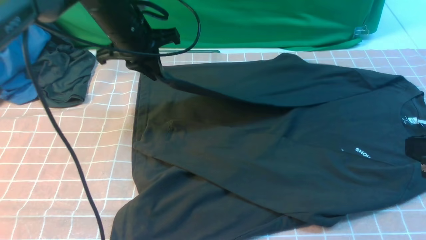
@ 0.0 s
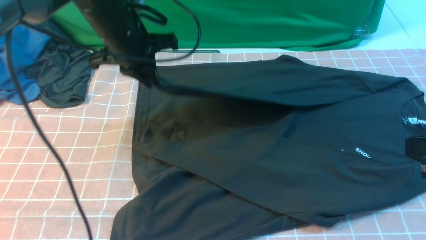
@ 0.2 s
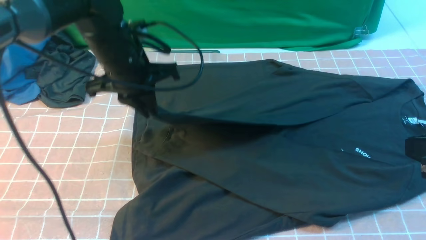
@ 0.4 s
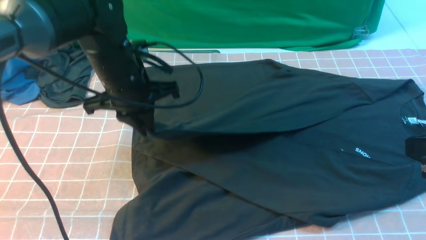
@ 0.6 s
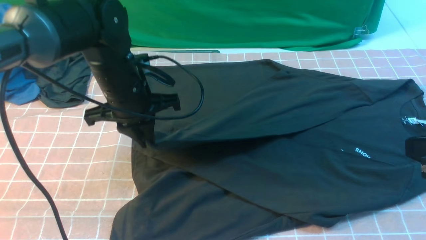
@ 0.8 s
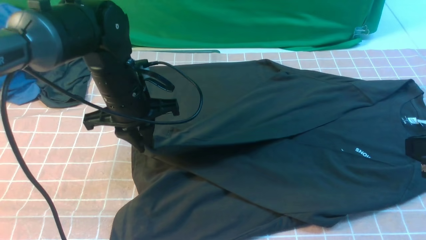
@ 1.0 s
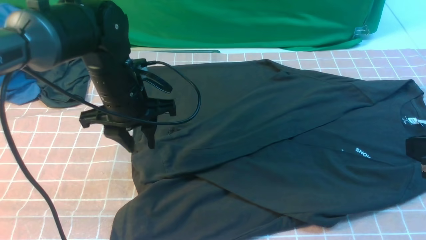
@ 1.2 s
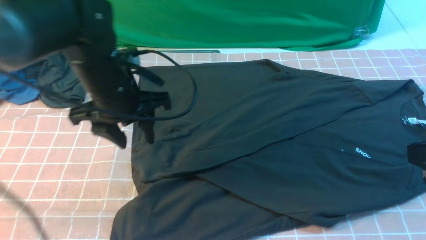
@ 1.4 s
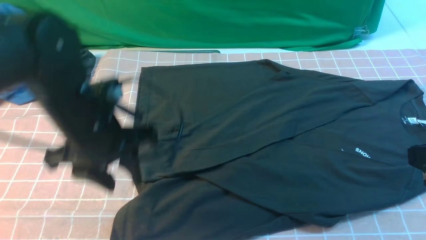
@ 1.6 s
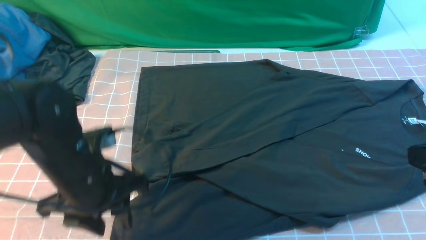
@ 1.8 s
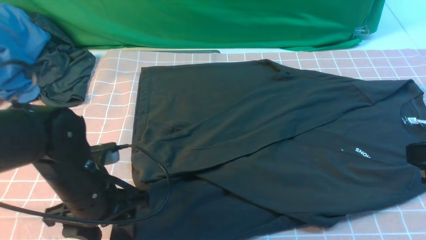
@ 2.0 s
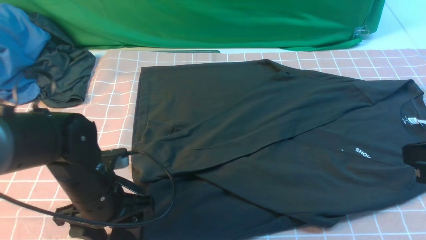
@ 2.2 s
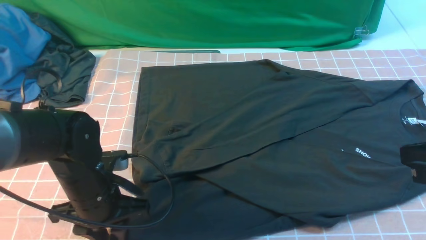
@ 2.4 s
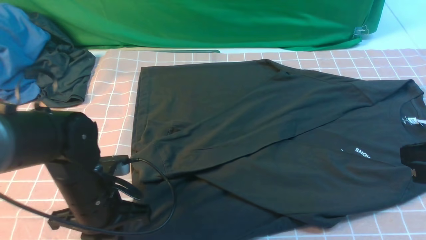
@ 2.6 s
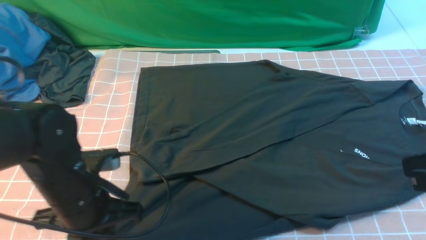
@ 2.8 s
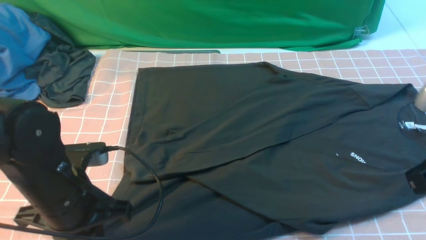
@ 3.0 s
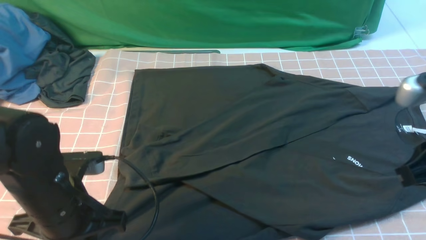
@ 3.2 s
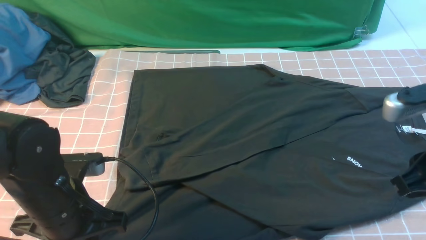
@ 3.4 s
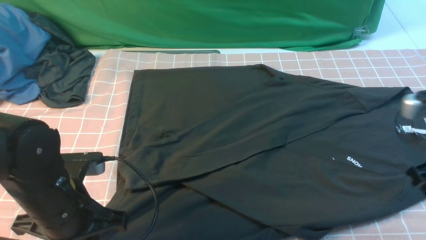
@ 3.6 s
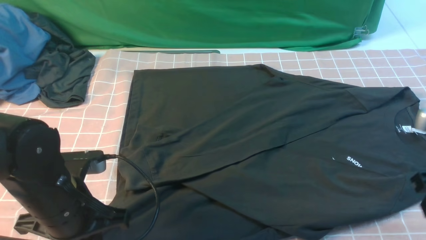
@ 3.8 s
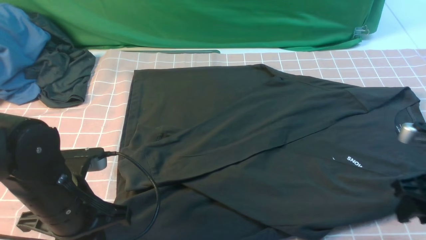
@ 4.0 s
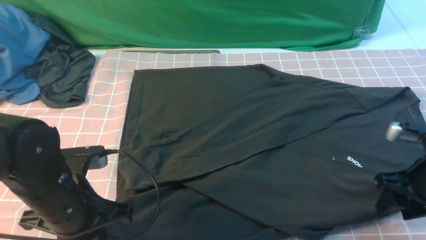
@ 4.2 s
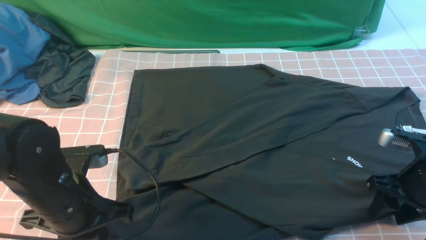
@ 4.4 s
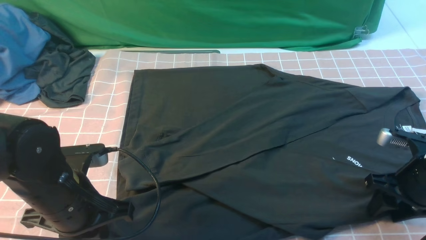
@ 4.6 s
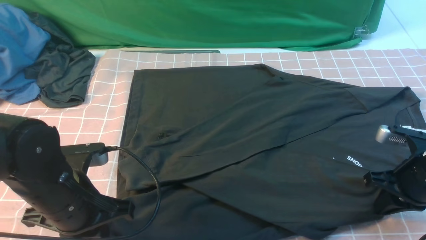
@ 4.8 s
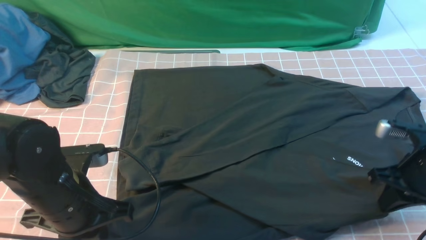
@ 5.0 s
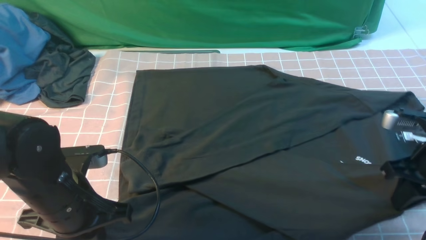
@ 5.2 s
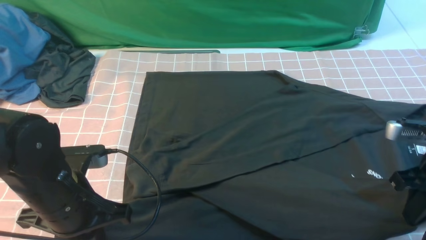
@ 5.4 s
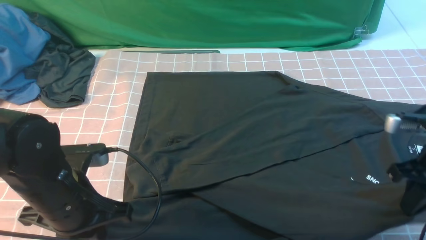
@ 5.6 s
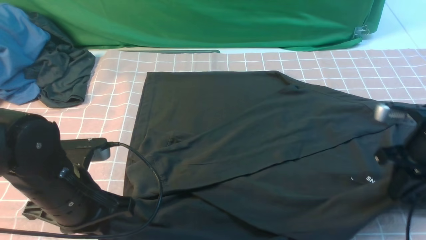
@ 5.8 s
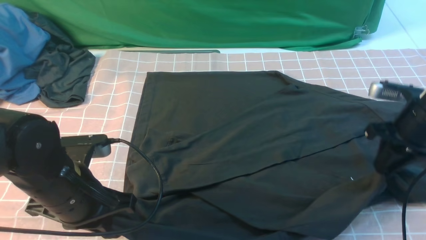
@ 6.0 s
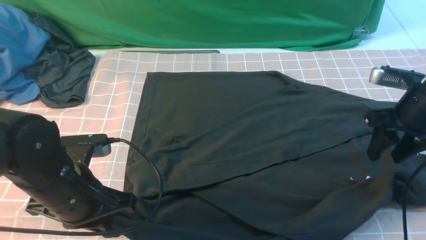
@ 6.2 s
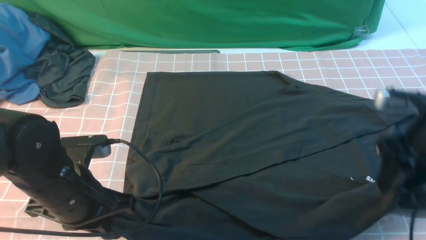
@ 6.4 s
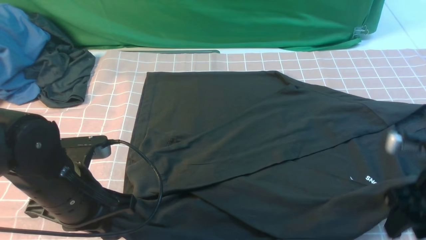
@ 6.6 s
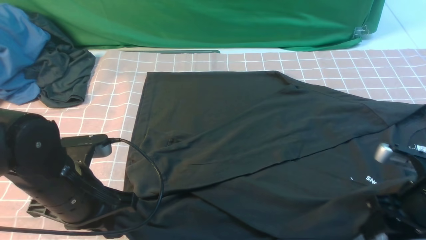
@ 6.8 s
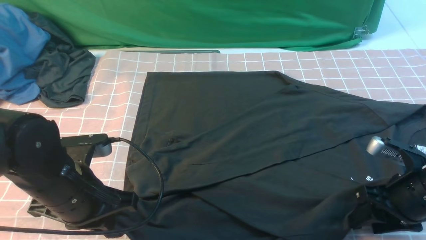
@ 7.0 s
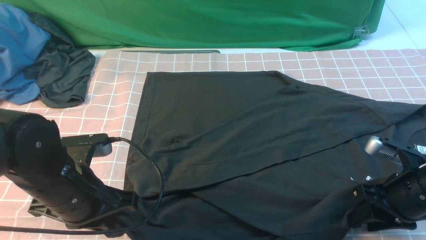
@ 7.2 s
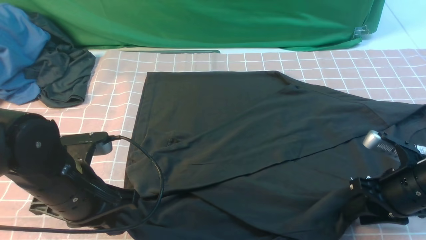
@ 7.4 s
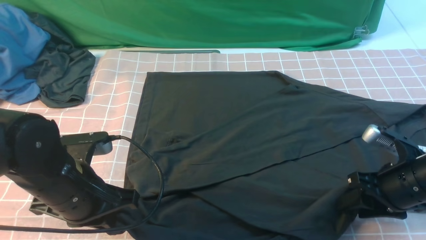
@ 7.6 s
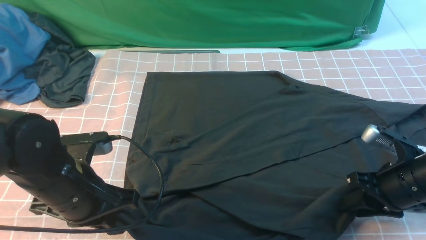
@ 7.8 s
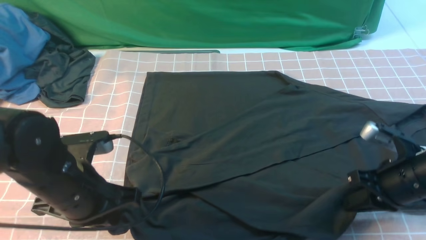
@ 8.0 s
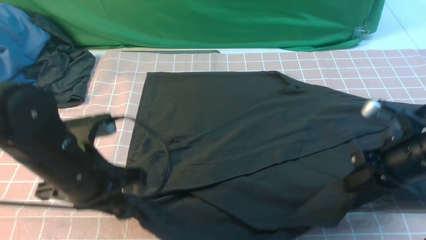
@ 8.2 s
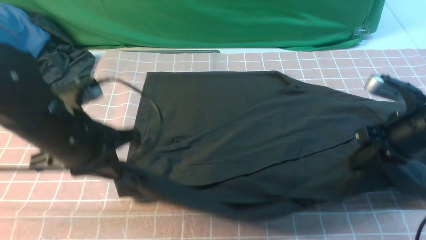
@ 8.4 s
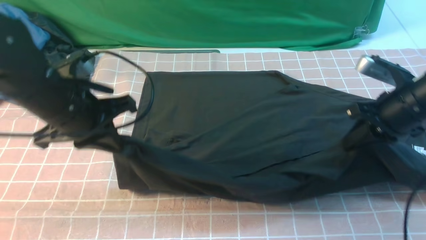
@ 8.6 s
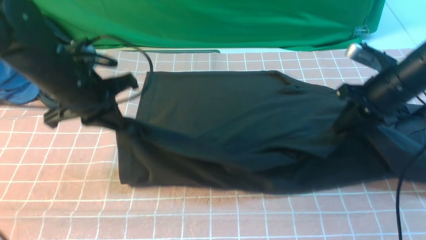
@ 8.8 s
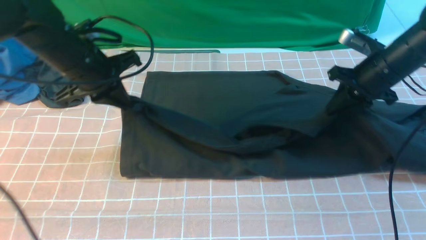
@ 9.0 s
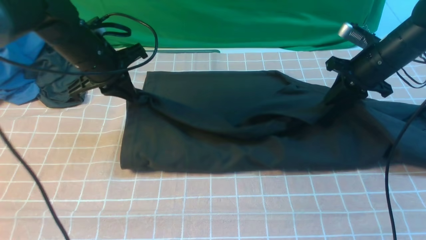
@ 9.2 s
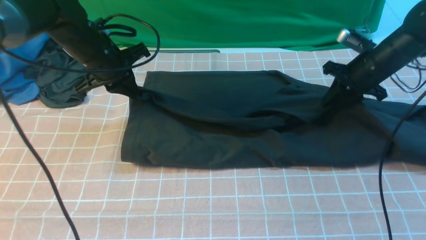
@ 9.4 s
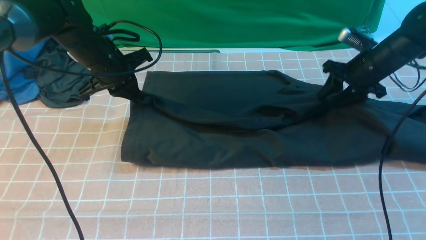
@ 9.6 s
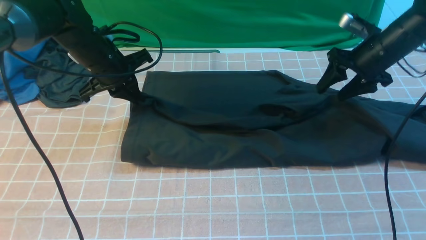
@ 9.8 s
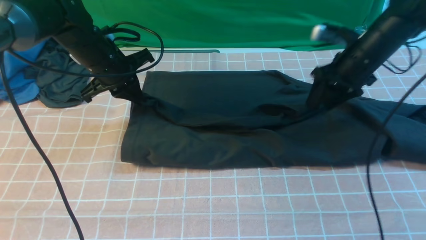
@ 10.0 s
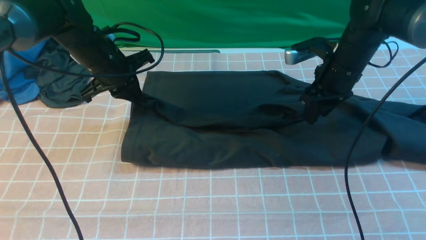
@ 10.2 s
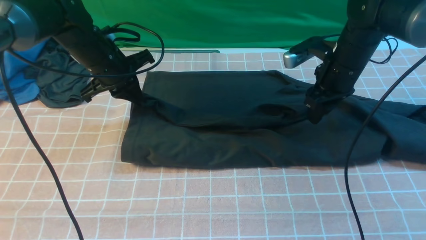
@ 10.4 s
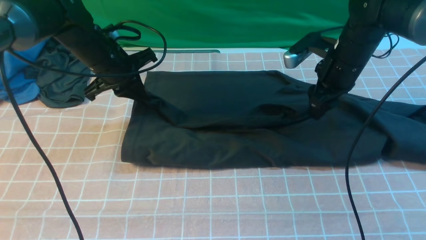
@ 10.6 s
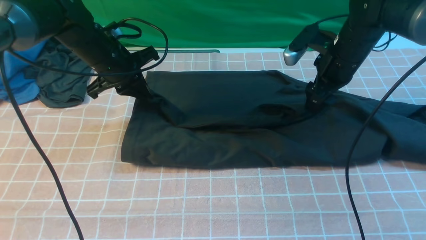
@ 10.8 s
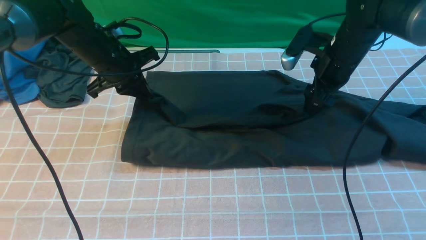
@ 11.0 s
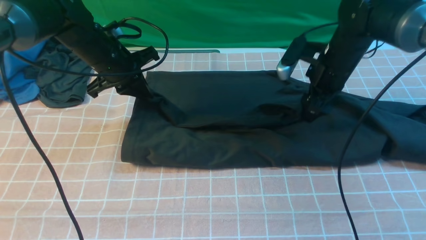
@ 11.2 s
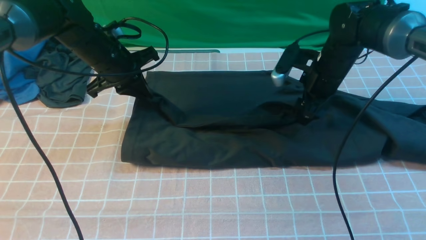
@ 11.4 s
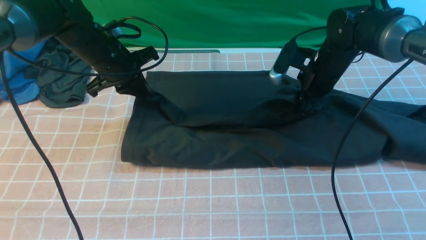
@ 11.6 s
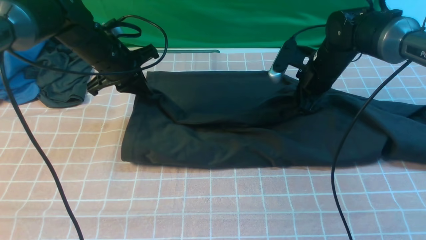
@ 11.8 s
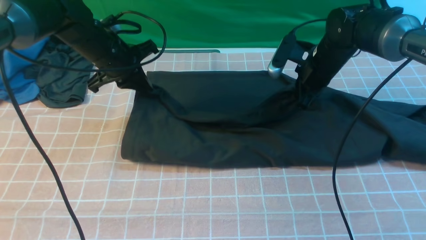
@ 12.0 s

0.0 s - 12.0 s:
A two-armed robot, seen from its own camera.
Step, 0.0 s - 1.2 s: use the left arm to drag and drop the cuff onto the cuff closest to the left arm.
Step, 1.4 s - 8.2 s: use both arms simultaneously to clamp the lower edge of the clothing fabric.
0.0 s - 1.6 s: The left gripper goes roughly 15 cm backward, and opens.
1.6 s - 3.0 s: The left gripper heads backward, covering about 5 cm, and closes its fingers.
3.0 s - 4.4 s: The right gripper travels downward and forward by about 15 cm, and opens its fingers.
4.4 s - 6.0 s: The right gripper heads forward and upward, covering approximately 10 cm, and closes, then opens again.
6.0 s - 7.6 s: The right gripper shifts some 10 cm backward and downward.
7.6 s - 9.0 s: Both grippers travel together forward, some 15 cm. The right gripper closes up.
9.0 s - 10.4 s: The right gripper shifts roughly 5 cm to the left, and opens up; the left gripper heads forward, covering about 5 cm.
10.4 s - 12.0 s: The right gripper shifts by about 5 cm, and closes up.

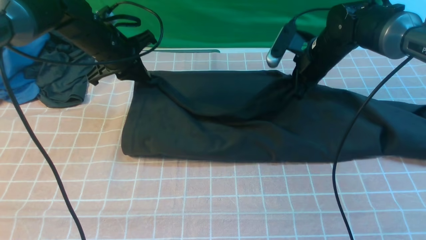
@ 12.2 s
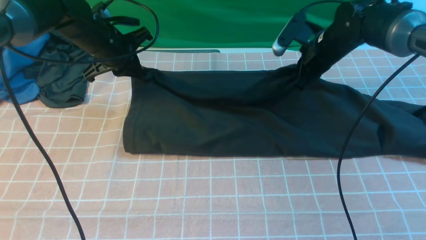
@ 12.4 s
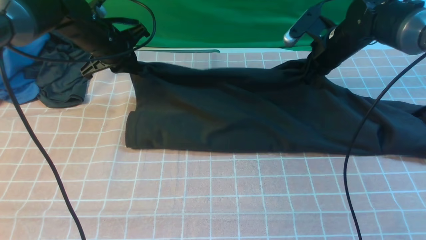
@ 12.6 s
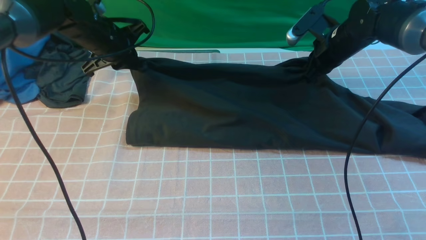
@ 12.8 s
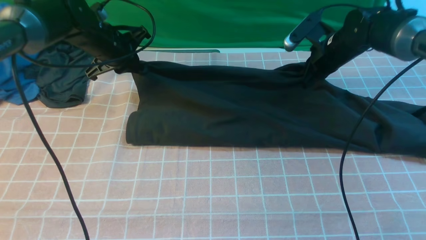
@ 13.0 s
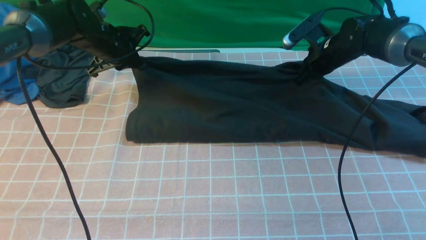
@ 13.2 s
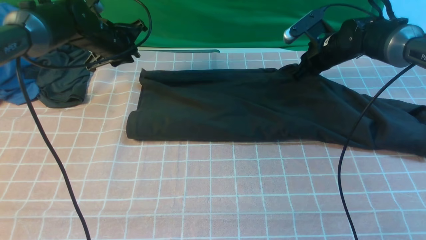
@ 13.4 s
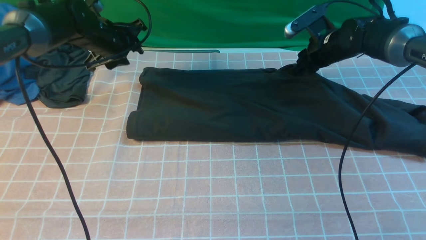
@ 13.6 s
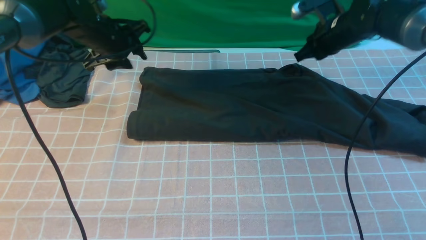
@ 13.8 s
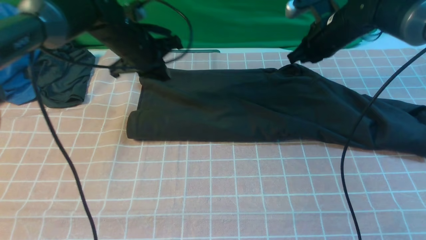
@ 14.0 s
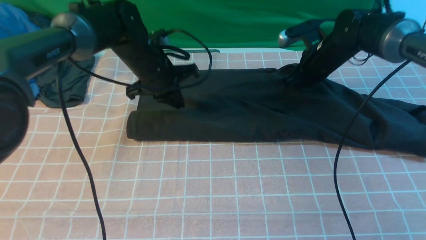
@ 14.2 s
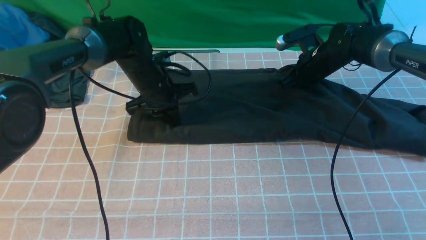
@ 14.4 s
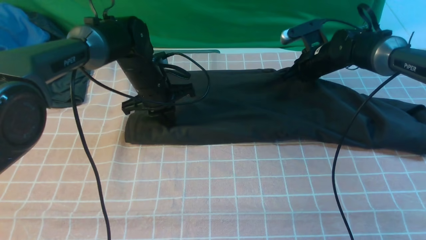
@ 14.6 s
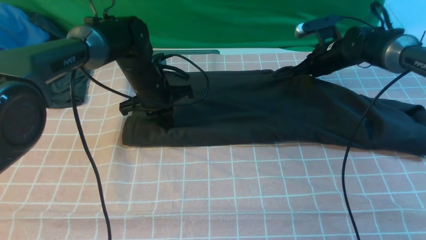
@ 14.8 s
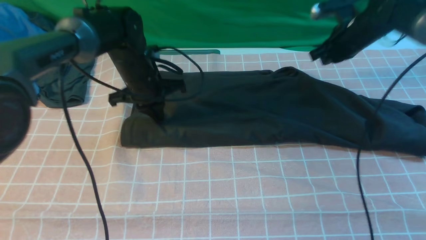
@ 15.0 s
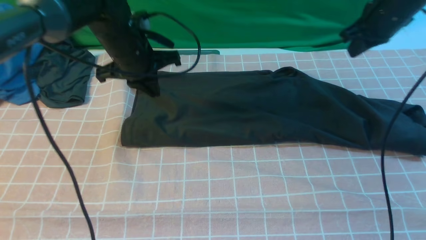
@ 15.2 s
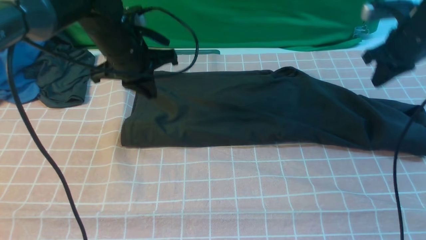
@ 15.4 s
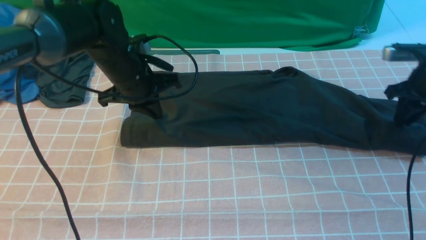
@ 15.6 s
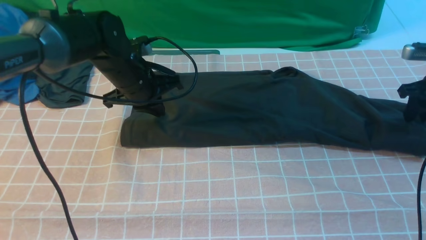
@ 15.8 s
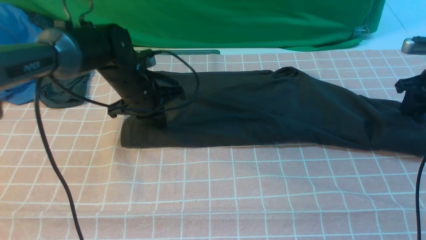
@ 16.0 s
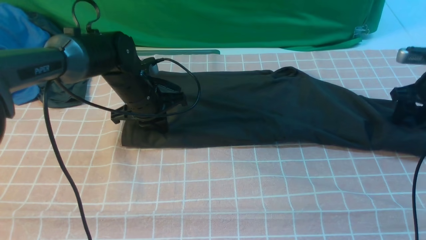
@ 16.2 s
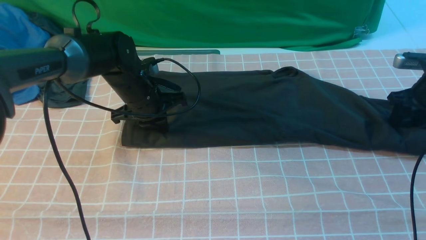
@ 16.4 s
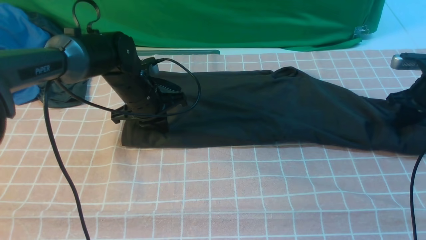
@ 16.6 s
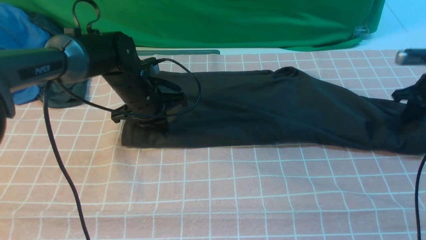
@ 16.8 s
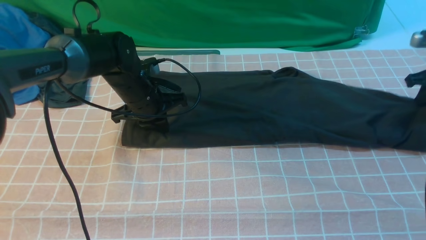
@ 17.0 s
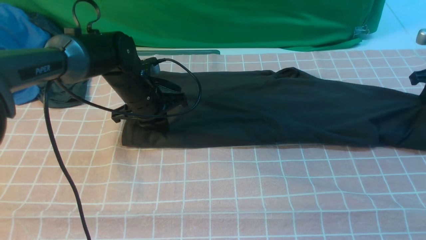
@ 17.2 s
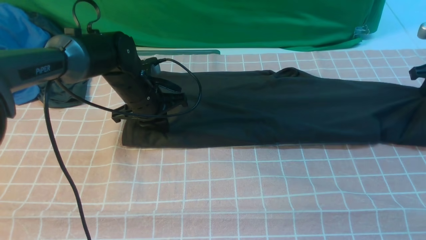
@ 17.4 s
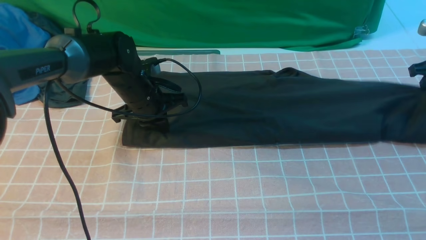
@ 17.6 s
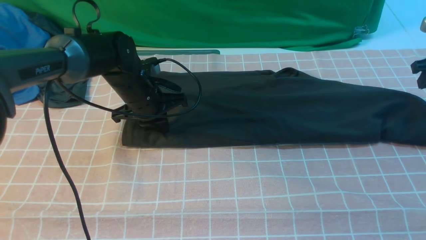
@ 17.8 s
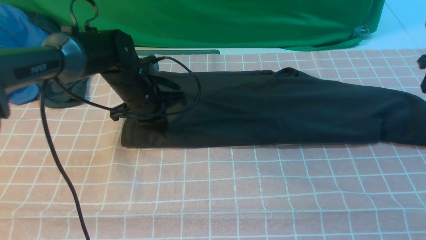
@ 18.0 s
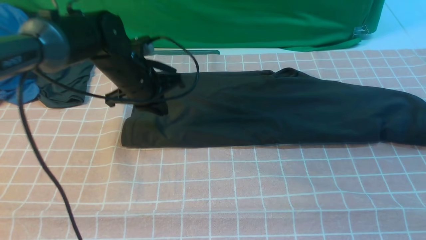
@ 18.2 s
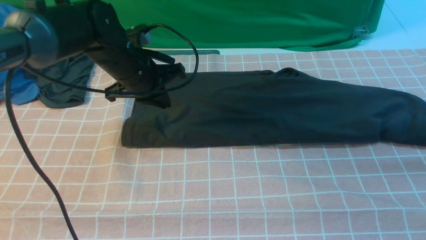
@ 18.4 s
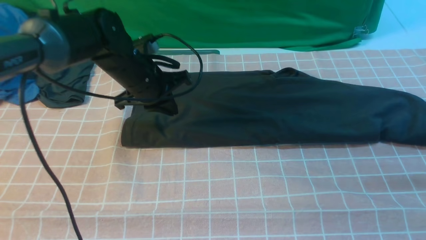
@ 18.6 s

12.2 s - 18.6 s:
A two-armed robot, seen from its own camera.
12.2 s - 13.8 s: The left gripper opens its fingers.
13.8 s - 15.4 s: The left gripper moves backward, approximately 5 cm, reaches about 5 cm downward, then returns, and closes. Meanwhile the right gripper moves to the right and backward, approximately 15 cm.
15.4 s - 17.0 s: The right gripper shifts some 10 cm to the right, and opens, then closes again; the left gripper heads downward, covering about 10 cm.
17.0 s - 18.6 s: The right gripper shifts roughly 10 cm upward and backward.
